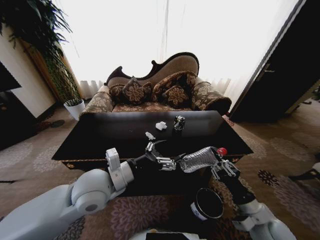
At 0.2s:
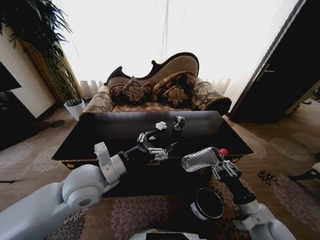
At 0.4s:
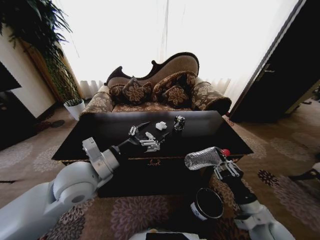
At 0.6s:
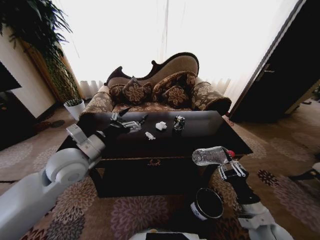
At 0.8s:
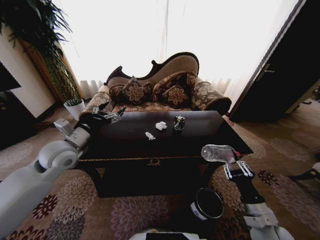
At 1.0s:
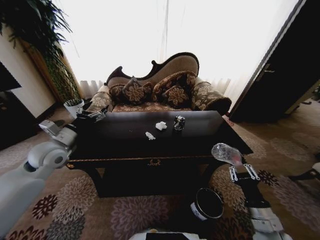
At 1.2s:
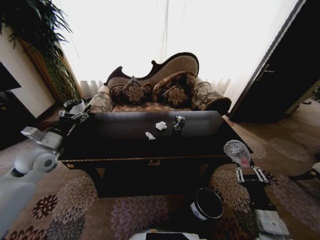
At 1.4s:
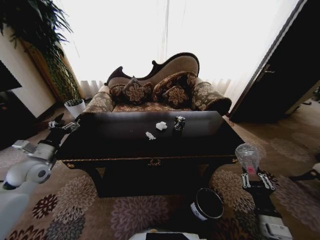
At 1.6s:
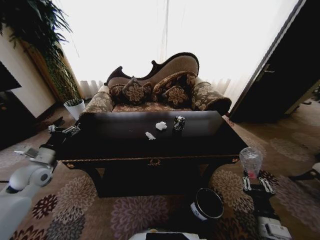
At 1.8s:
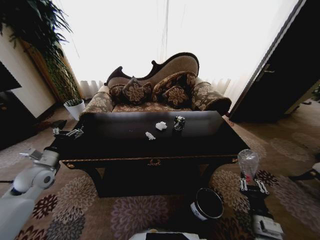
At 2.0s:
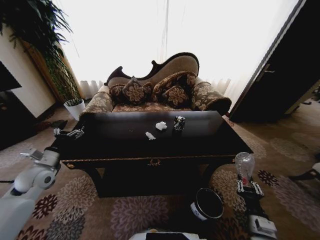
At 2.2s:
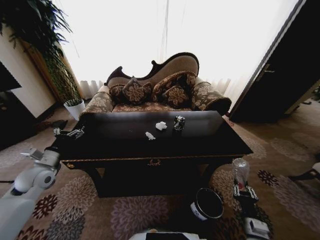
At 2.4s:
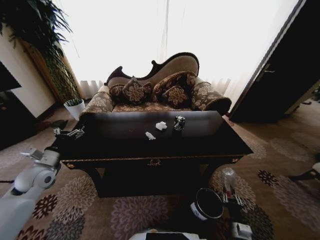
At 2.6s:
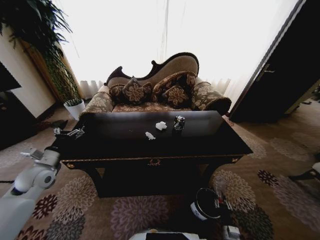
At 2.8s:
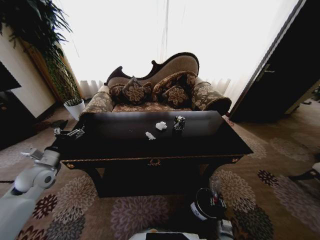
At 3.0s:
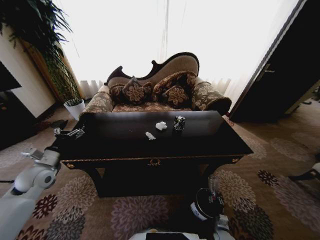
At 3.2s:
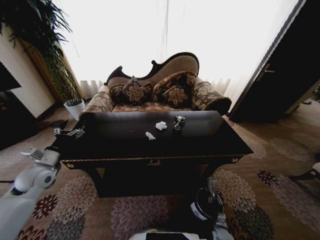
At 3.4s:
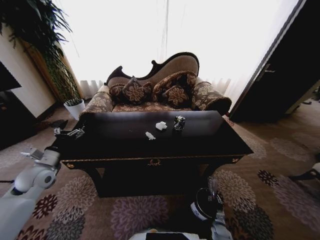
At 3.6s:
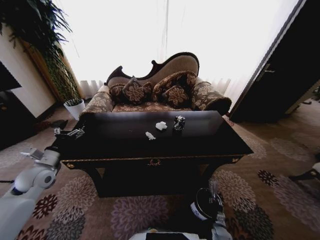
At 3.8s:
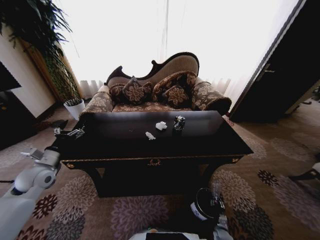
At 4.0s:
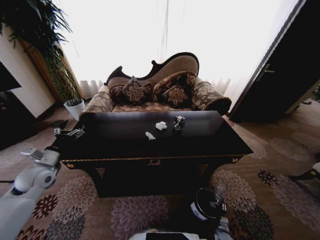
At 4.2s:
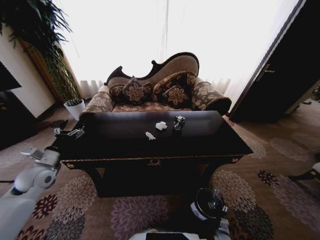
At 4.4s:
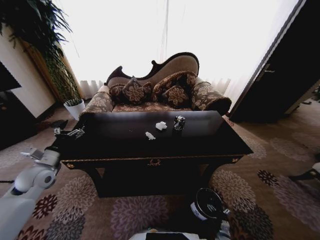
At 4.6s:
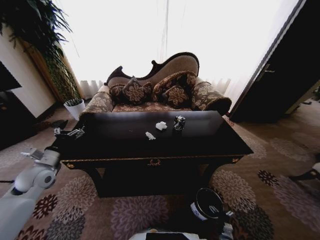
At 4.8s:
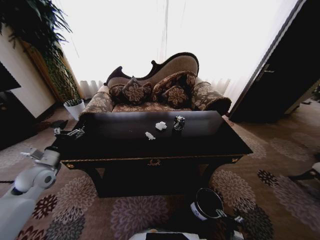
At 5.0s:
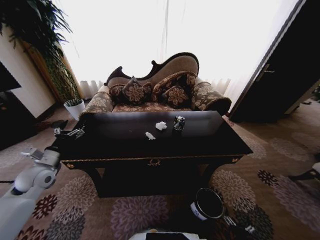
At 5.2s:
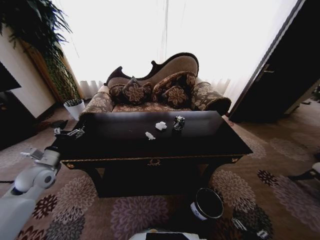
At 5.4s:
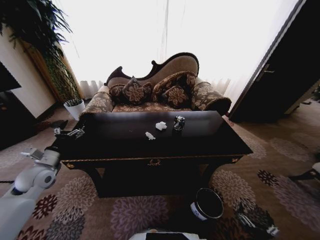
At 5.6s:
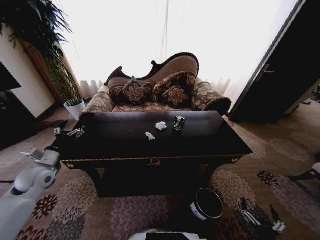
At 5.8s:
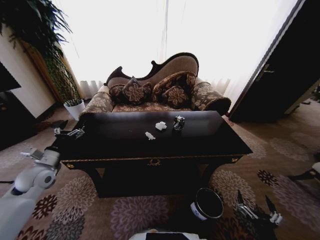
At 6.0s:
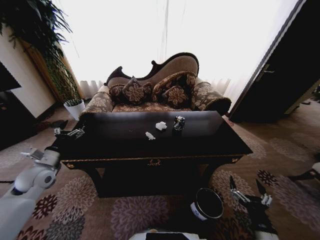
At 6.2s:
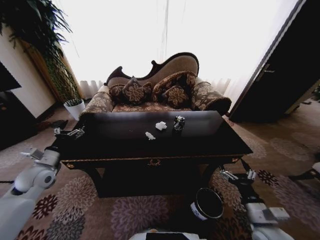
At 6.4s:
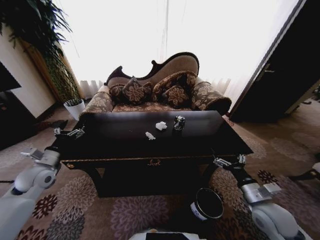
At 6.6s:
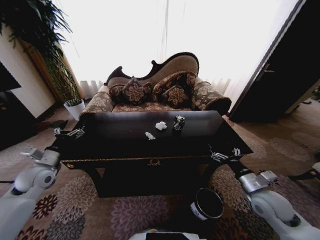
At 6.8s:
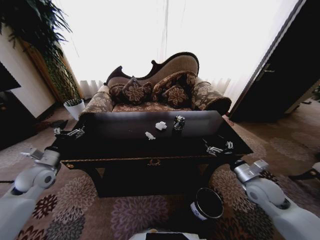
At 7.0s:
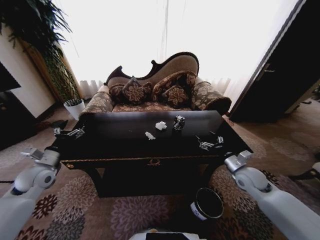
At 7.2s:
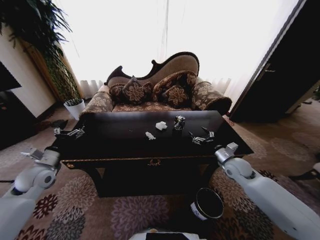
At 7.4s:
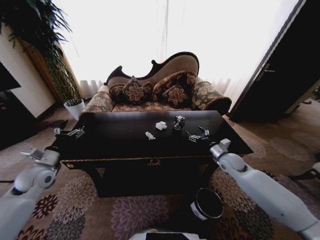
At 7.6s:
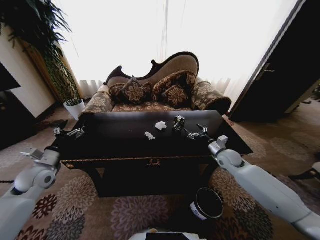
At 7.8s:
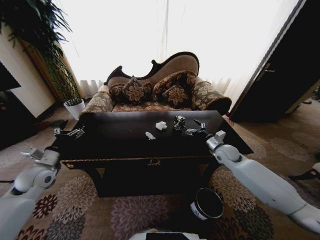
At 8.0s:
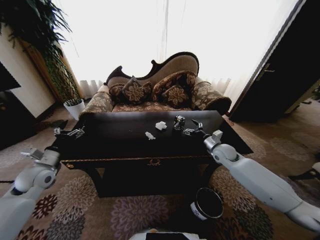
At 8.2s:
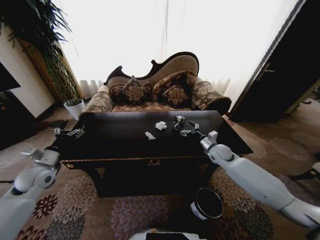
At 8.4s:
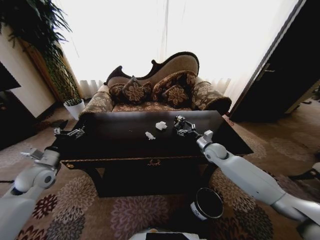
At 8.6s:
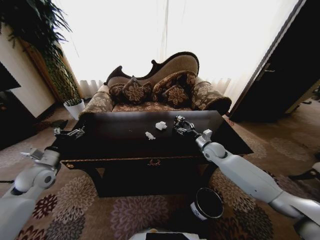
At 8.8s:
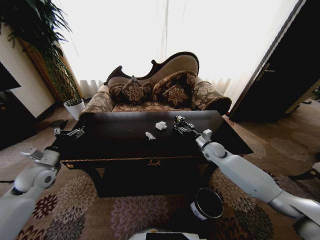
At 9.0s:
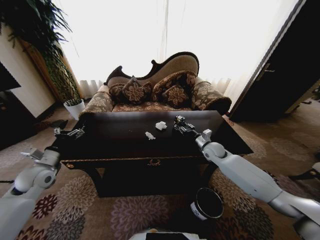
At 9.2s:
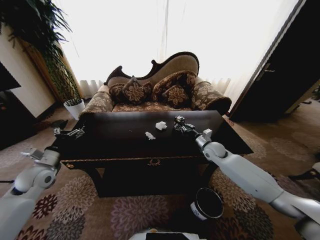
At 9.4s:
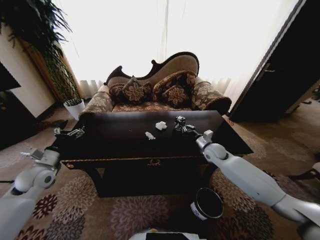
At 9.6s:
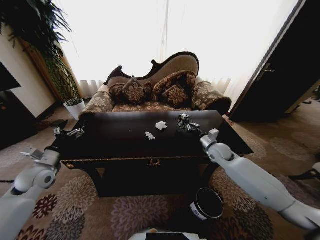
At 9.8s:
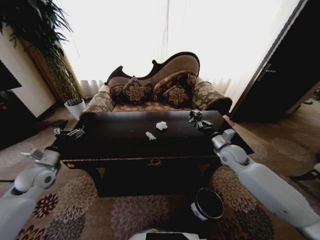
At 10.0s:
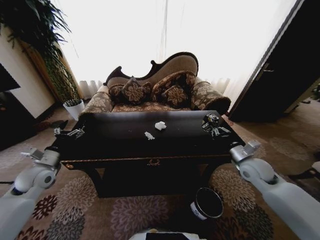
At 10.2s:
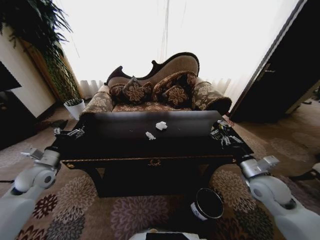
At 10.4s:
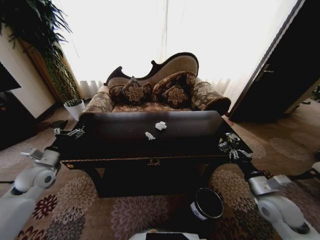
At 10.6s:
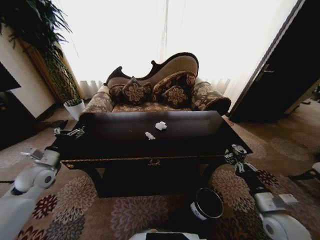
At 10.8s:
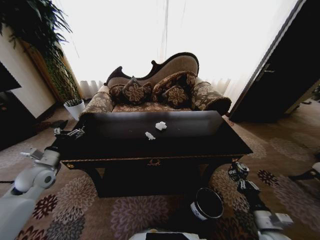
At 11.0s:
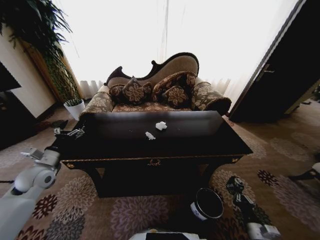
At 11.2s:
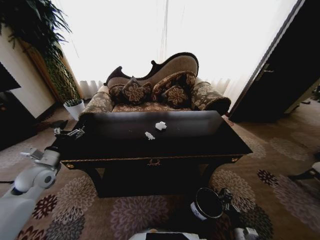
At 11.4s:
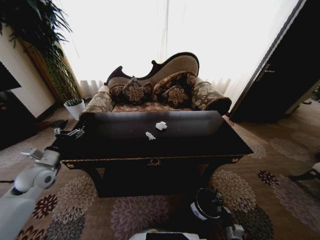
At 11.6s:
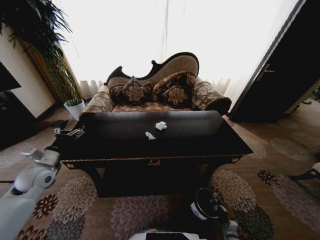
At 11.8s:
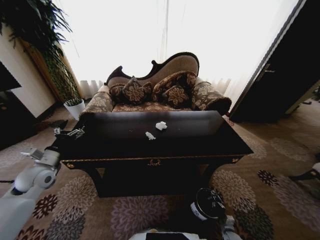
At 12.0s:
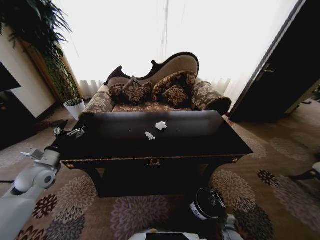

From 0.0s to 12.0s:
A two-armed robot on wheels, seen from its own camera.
Task of the whole recording: Move to the front of the table and place the trash on the table into the trash bin.
From 0.0s to 1.6s: The left gripper moves to the left, about 30 cm. Meanwhile the right gripper heads downward, covering about 5 cm.
From 1.6s to 3.0s: The right gripper is displaced downward by some 30 cm.
From 4.4s to 6.0s: The right gripper travels upward by about 35 cm.
From 6.0s to 7.6s: The right gripper shifts approximately 35 cm forward.
From 7.6s to 9.0s: The right gripper heads to the left, covering roughly 5 cm, and closes its fingers.
From 9.0s to 10.4s: The right gripper goes some 25 cm backward, and closes.
From 10.4s to 12.0s: The right gripper heads downward, covering some 40 cm.

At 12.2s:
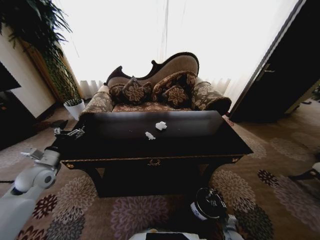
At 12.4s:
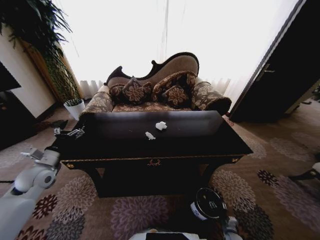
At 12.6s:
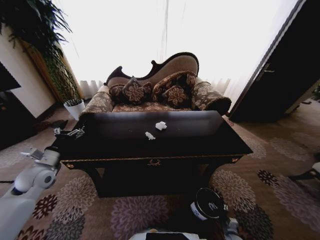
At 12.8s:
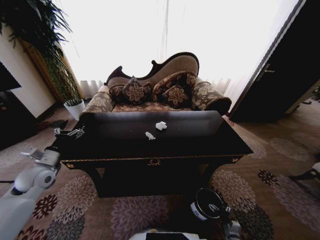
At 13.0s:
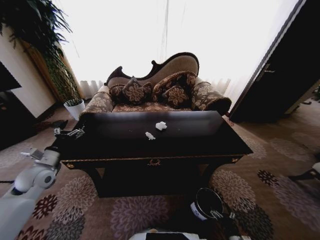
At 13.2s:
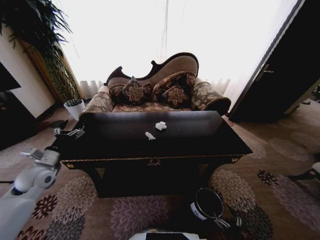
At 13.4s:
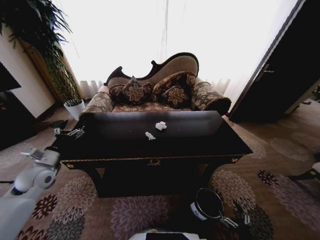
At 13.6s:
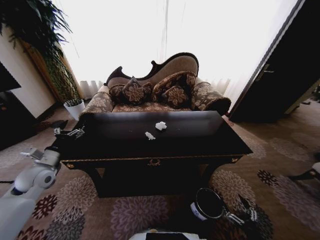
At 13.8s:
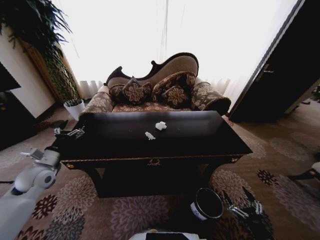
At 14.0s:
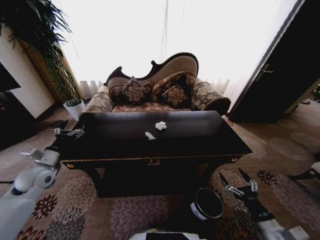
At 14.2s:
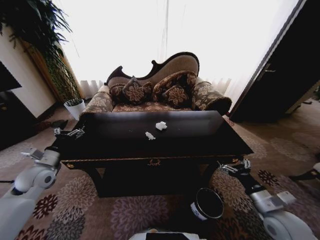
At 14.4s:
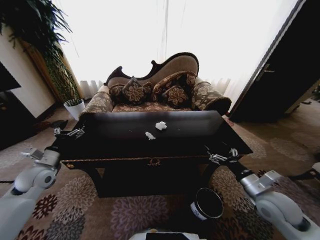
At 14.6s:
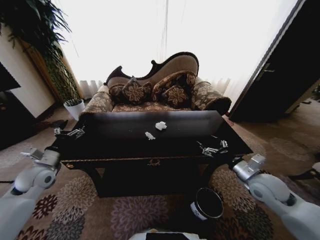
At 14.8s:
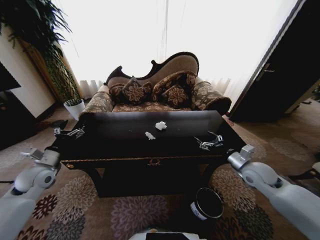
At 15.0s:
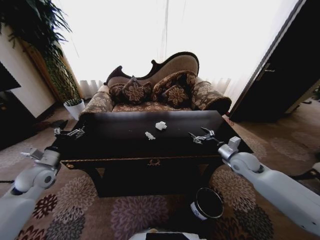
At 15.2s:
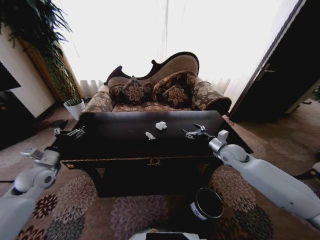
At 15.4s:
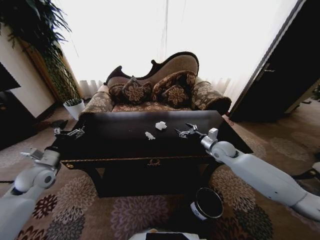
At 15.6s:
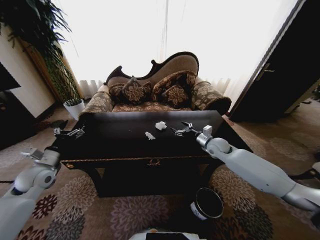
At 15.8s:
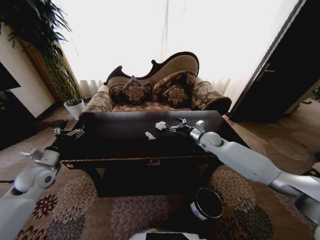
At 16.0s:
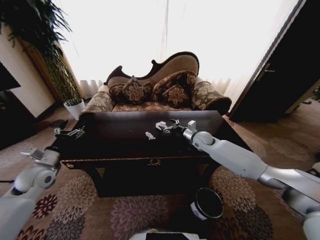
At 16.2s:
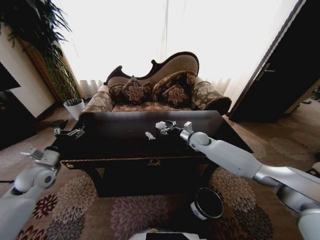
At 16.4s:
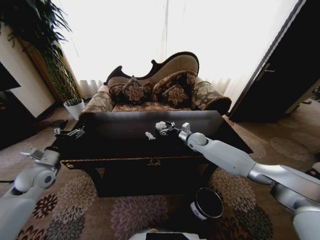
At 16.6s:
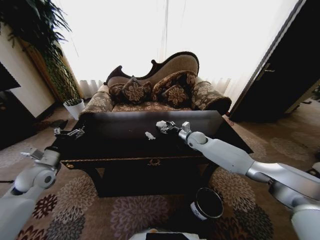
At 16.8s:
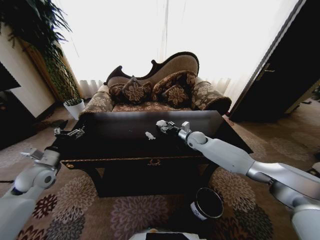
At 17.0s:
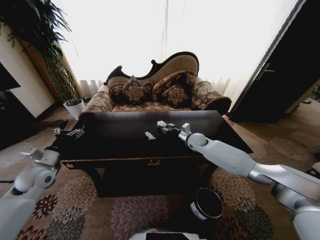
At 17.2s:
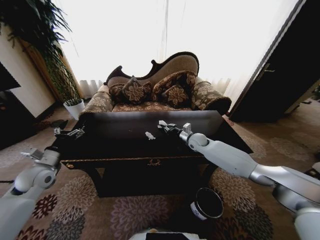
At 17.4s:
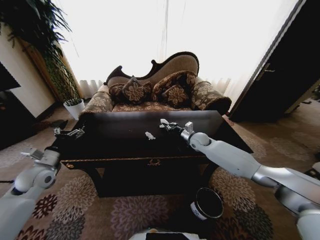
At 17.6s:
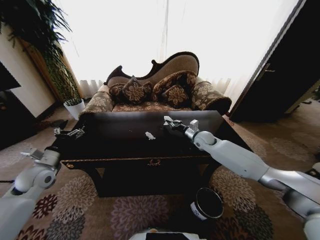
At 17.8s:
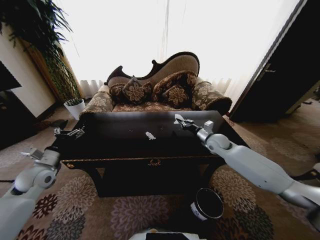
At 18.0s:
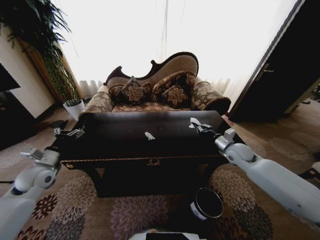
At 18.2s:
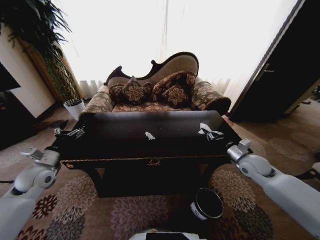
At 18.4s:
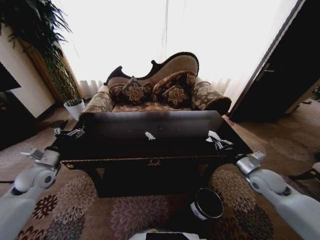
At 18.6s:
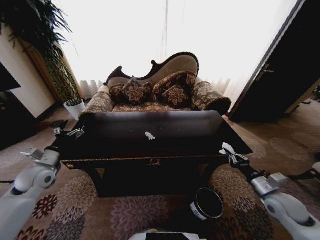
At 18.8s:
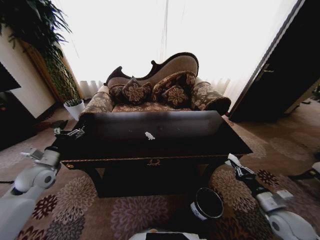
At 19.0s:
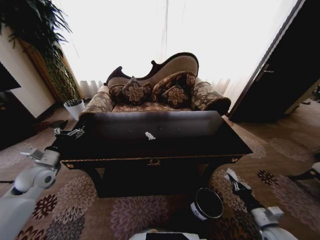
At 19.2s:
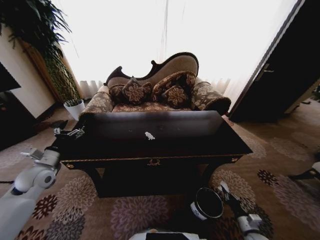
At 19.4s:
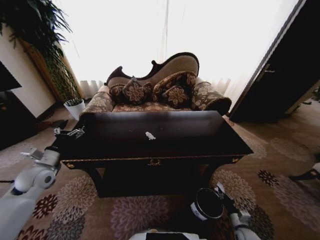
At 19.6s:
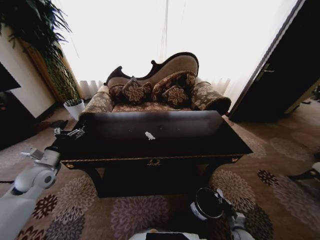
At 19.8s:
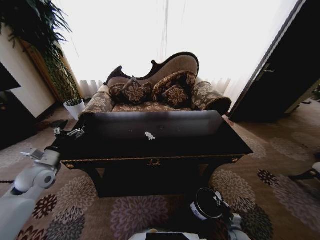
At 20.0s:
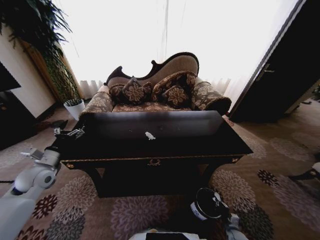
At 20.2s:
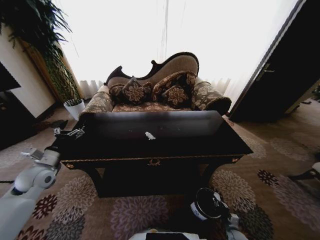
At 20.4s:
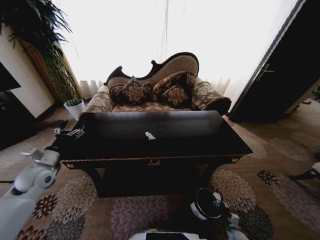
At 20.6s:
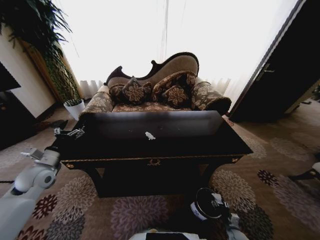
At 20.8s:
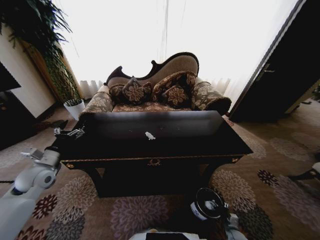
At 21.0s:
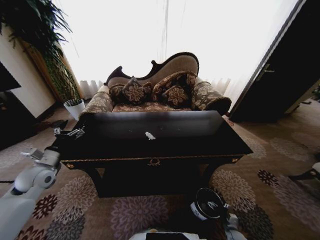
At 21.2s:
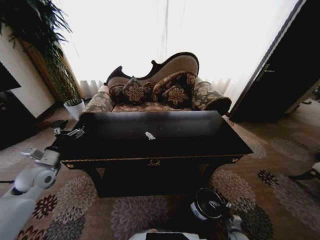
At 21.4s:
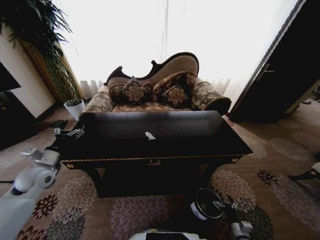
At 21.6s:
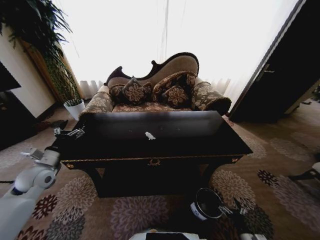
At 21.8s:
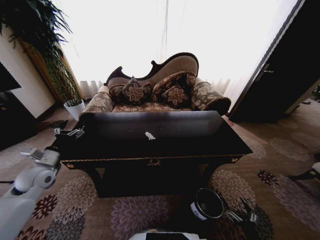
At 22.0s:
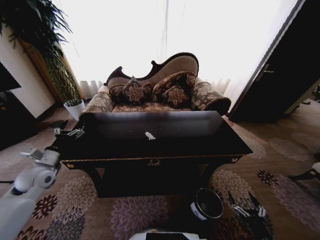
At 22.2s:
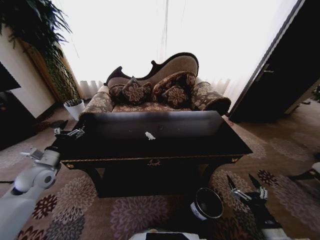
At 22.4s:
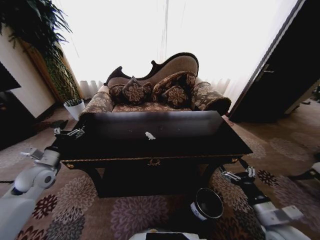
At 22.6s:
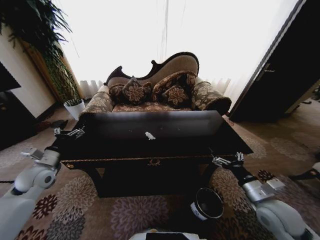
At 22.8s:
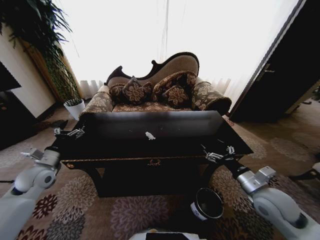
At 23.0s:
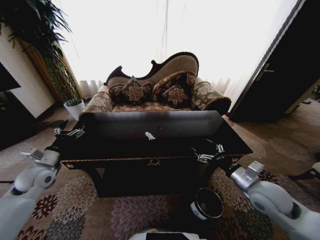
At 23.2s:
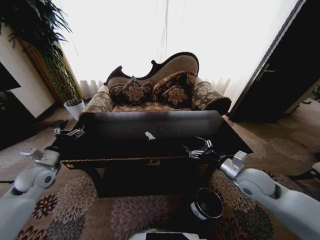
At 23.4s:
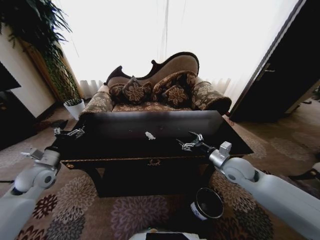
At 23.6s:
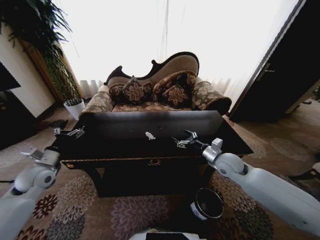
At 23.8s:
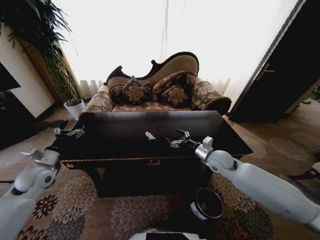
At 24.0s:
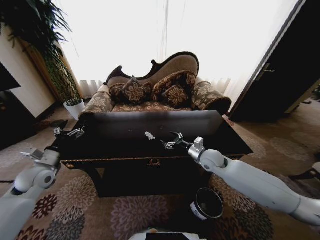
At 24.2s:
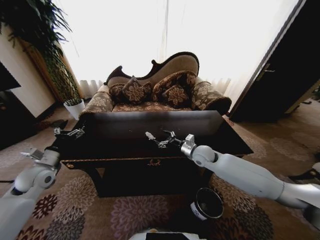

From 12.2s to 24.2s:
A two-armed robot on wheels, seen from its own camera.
Task of the whole recording: Move to the front of the table and place the trash on the table into the trash bin.
From 12.2s to 13.8s: The right gripper is displaced upward and backward by roughly 30 cm, and opens.
From 13.8s to 15.2s: The right gripper shifts roughly 40 cm forward.
From 15.2s to 16.6s: The right gripper shifts about 15 cm forward and to the left.
From 16.6s to 18.2s: The right gripper travels backward and to the right by roughly 25 cm, and closes.
From 18.2s to 19.8s: The right gripper shifts roughly 40 cm downward and backward.
From 21.2s to 22.6s: The right gripper travels upward by approximately 40 cm.
From 22.6s to 24.2s: The right gripper heads forward and to the left, covering some 30 cm.
